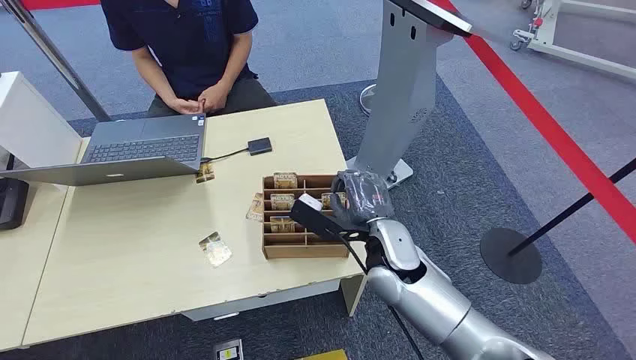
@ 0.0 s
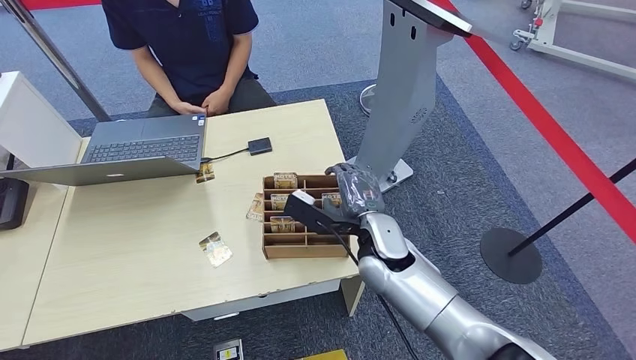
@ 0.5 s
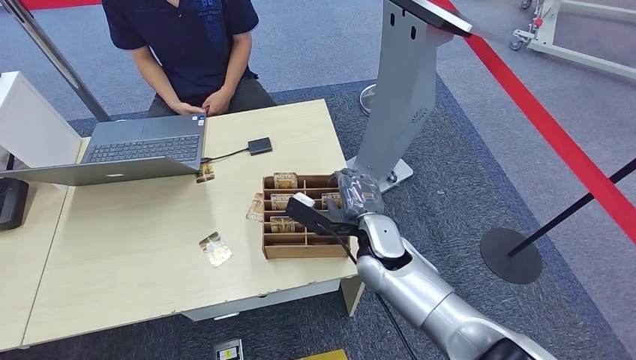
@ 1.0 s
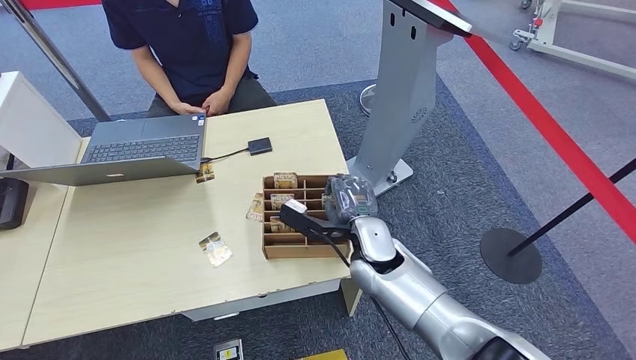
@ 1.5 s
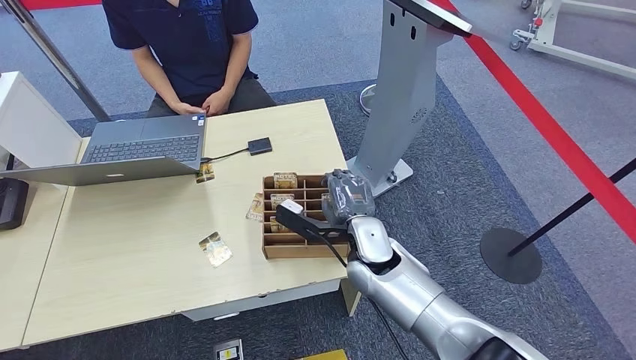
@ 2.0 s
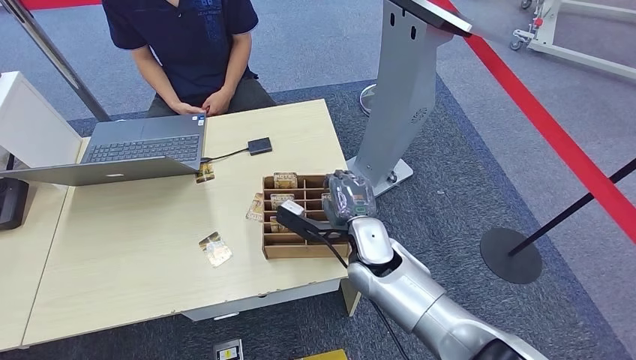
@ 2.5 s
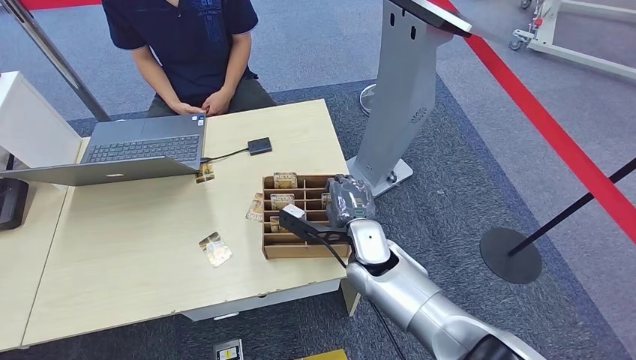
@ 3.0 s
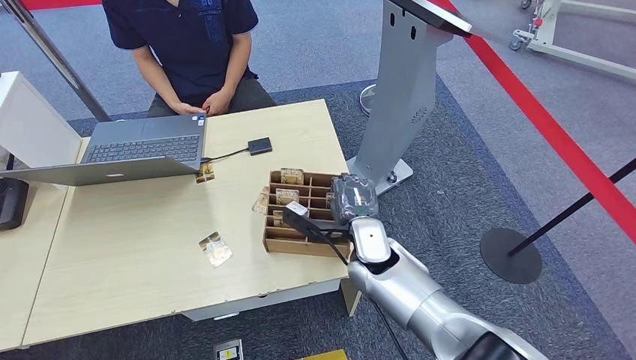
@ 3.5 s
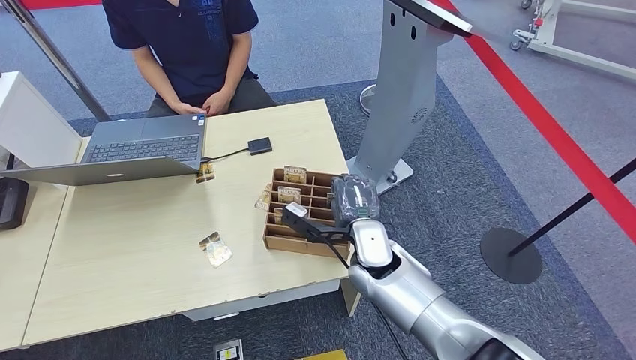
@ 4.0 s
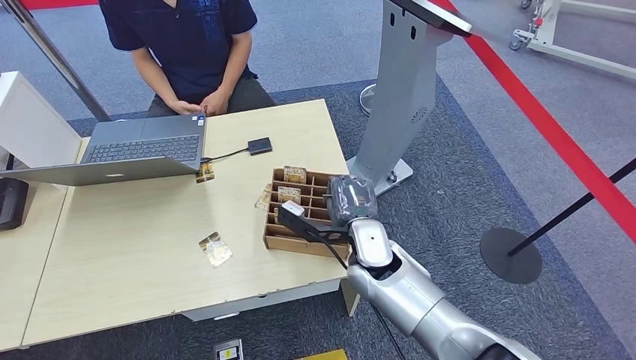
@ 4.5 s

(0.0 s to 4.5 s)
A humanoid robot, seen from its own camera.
Step, 0.0 s - 4.5 s: Pick up the key card from the card box.
2.0 s - 4.5 s: There are only small adjustments of the hands.
